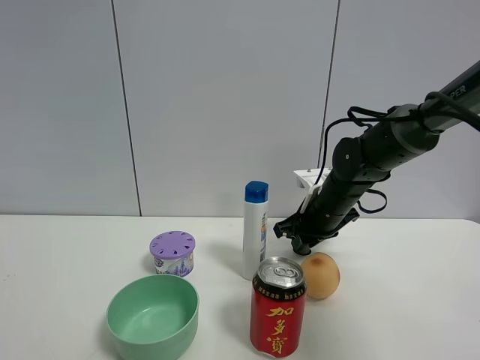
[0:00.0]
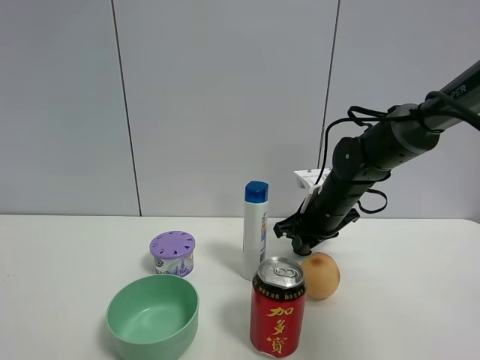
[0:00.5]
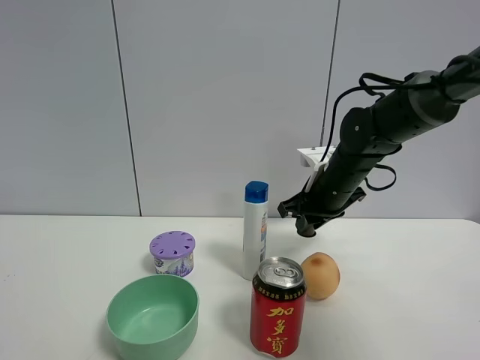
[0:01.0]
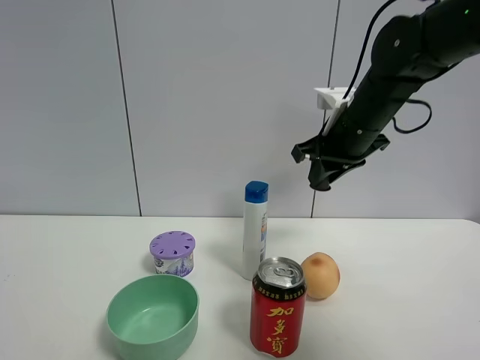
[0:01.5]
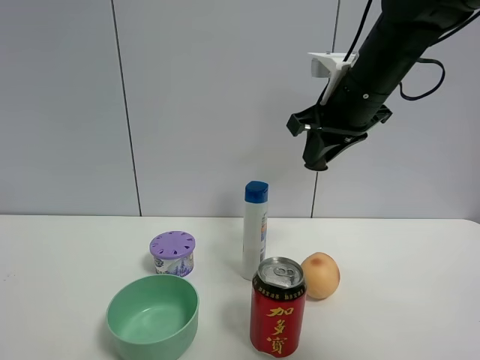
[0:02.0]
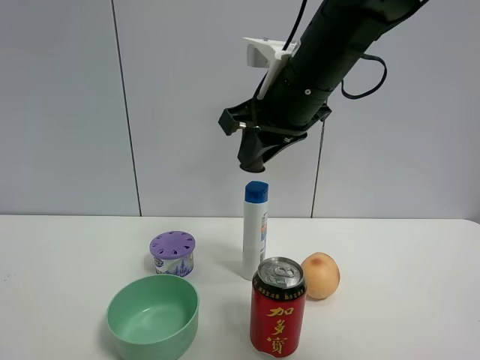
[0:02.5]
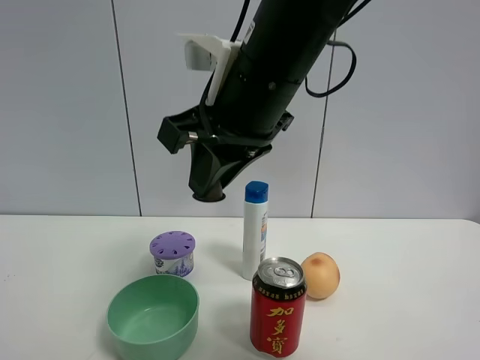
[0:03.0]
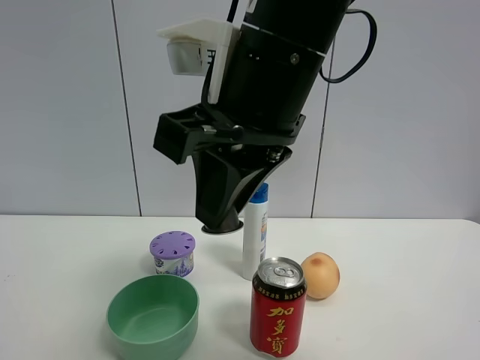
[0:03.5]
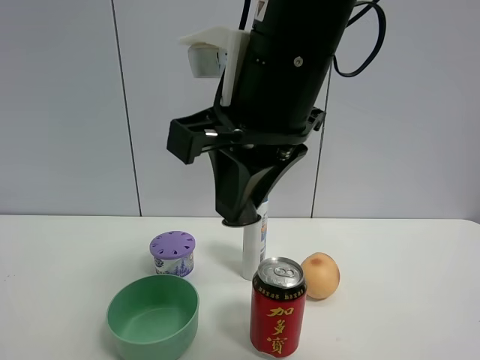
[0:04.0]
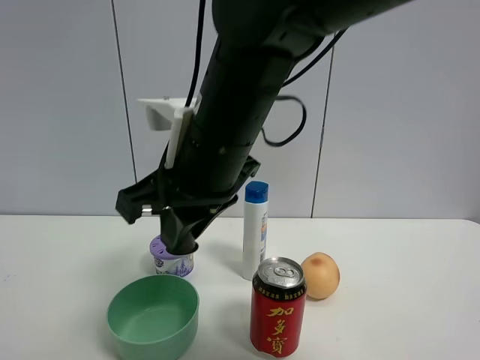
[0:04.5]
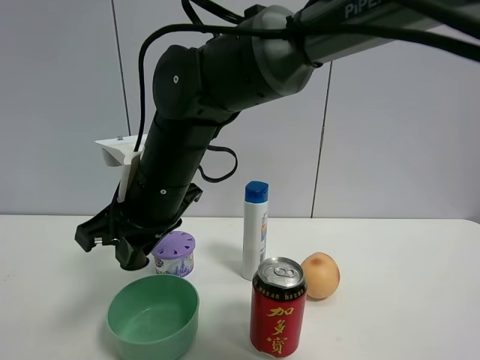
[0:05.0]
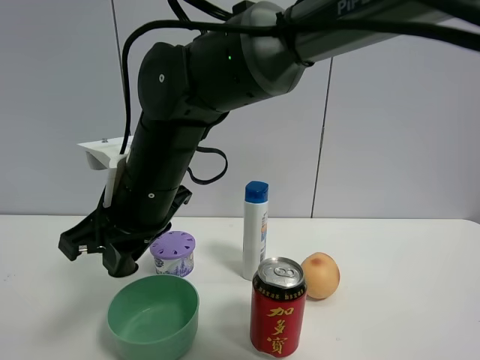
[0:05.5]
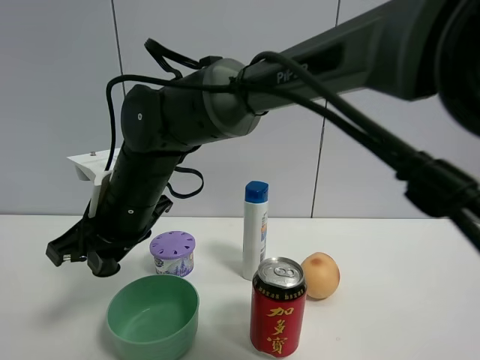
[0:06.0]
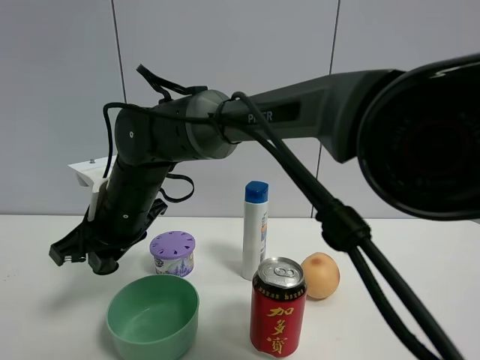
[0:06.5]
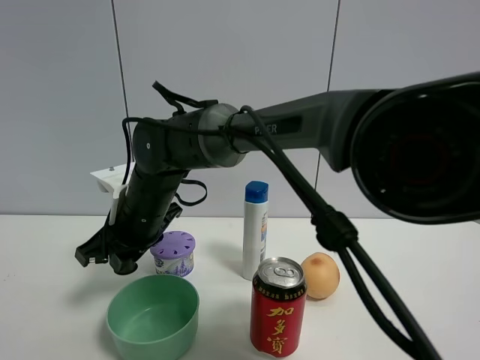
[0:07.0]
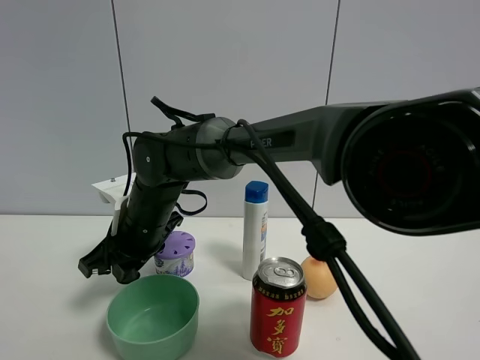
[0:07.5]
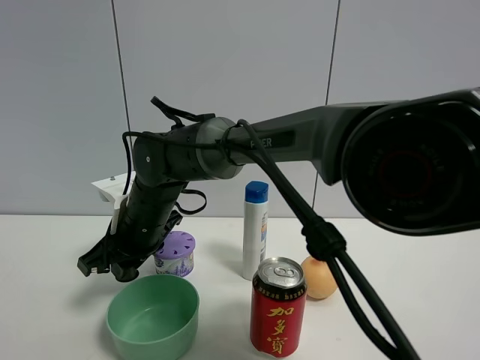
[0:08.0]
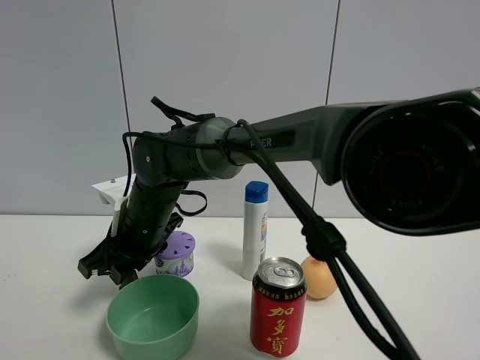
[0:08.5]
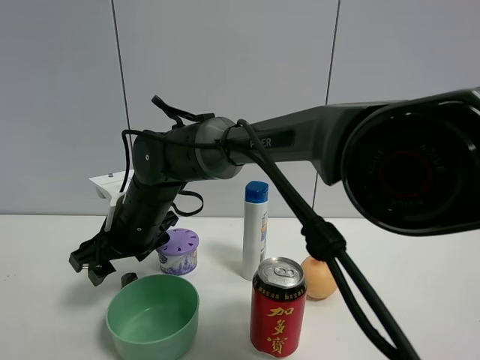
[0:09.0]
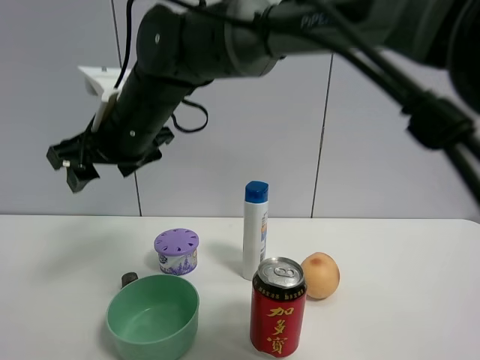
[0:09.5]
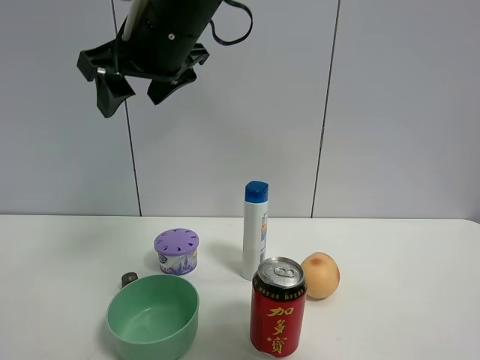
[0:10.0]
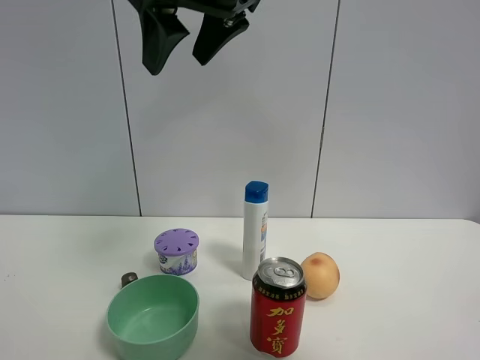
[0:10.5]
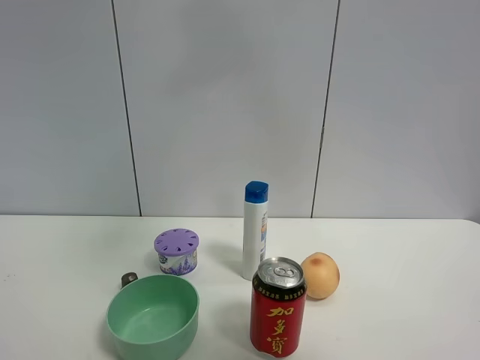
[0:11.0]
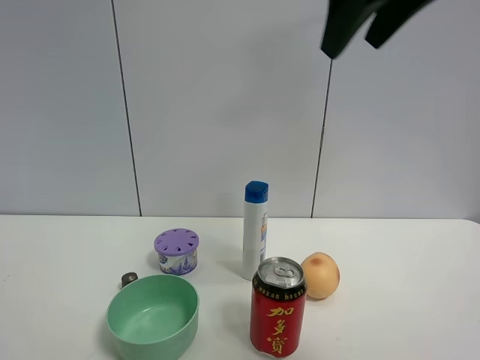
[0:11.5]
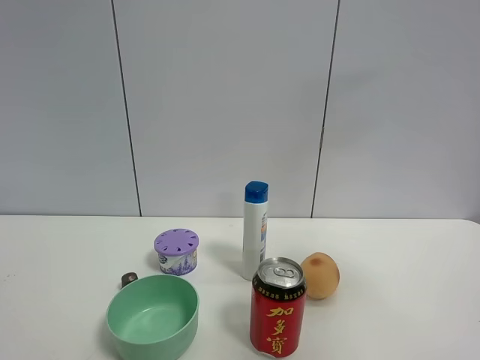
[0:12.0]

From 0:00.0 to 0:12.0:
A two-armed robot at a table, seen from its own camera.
Task of the whole recording: the gripper move the object.
Step, from 0:00.0 to 0:08.5: Place the coffee capsule on the table with the right gripper.
From 0:00.0 to 0:02.0: The right gripper is displaced upward by about 20 cm.
From 0:02.0 to 0:04.0: The right gripper goes about 20 cm backward and to the left.
From 0:04.0 to 0:06.0: The right gripper heads to the left, downward and forward, covering about 20 cm.
From 0:06.0 to 0:08.0: The right gripper changes place by roughly 5 cm.
From 0:08.0 to 0:10.0: The right gripper moves upward, roughly 20 cm, and opens.
From 0:10.0 to 0:12.0: The right gripper goes roughly 35 cm to the right and backward.

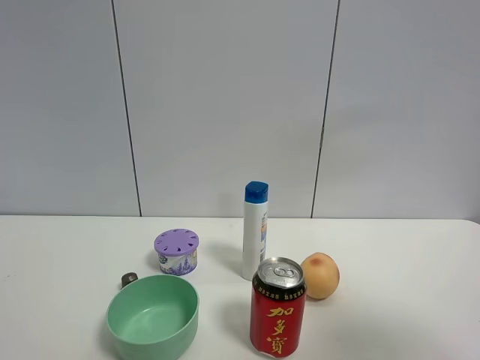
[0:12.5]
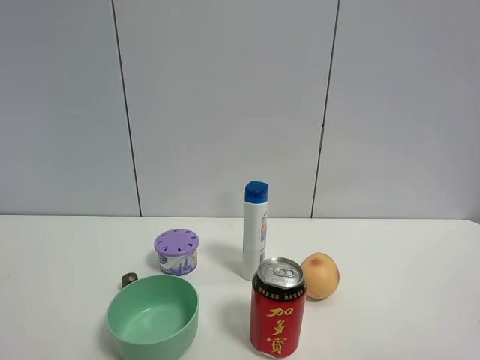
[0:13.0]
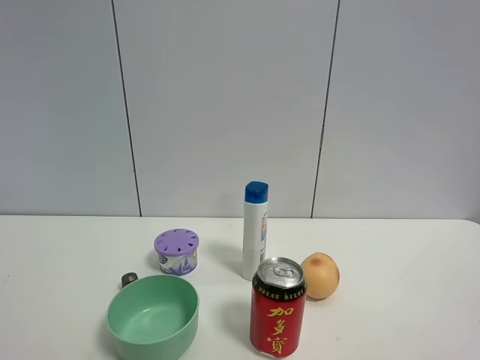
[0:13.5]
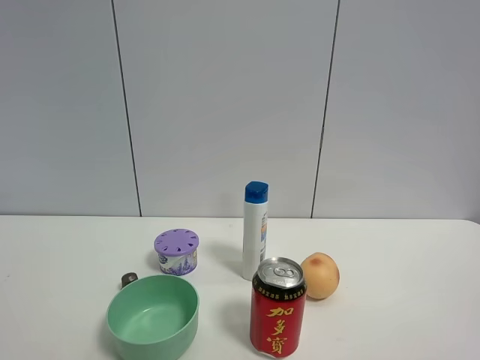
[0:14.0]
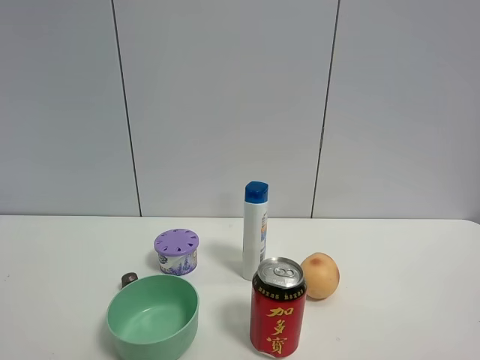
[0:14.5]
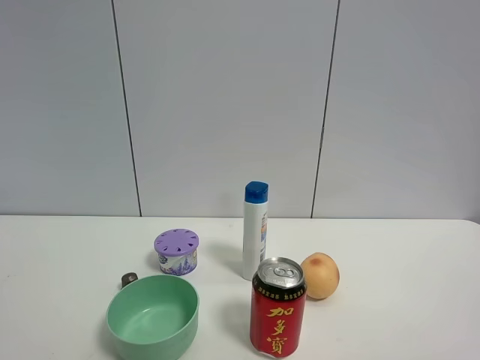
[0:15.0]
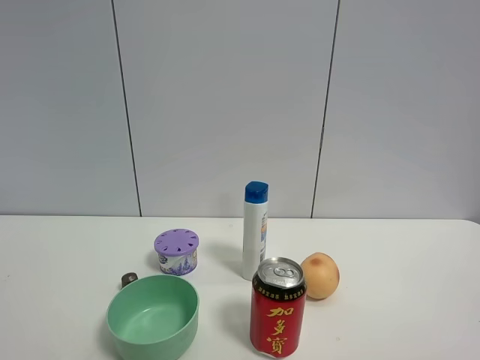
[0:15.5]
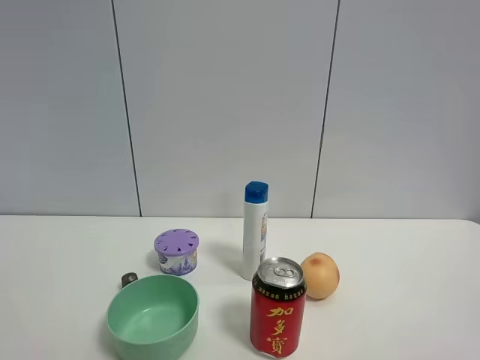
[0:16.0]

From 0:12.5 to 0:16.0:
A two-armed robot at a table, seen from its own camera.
Task of the whole recording: the gripper move the object.
From 0:12.5 to 0:14.5: The right gripper moves downward and backward, roughly 15 cm, and opens up.

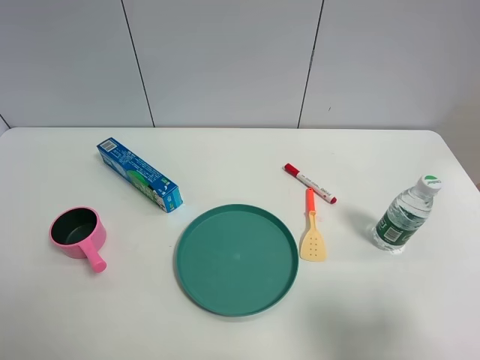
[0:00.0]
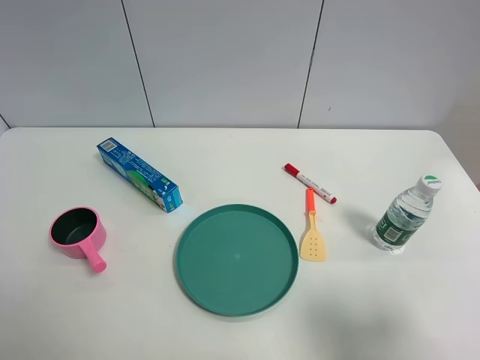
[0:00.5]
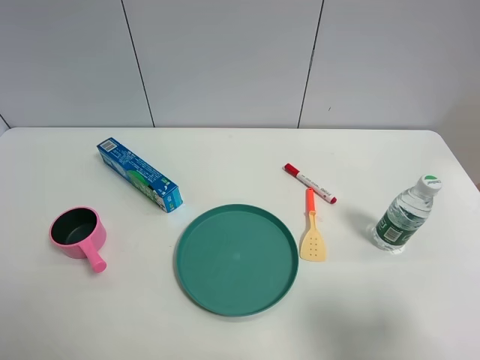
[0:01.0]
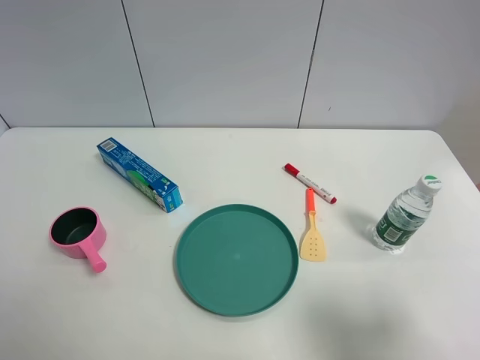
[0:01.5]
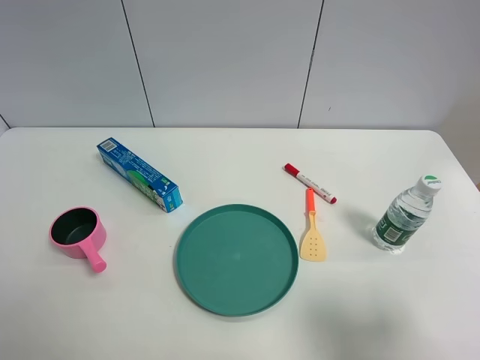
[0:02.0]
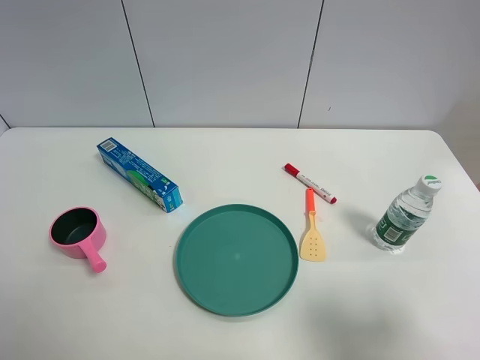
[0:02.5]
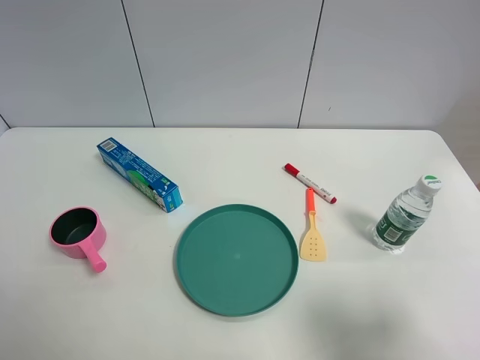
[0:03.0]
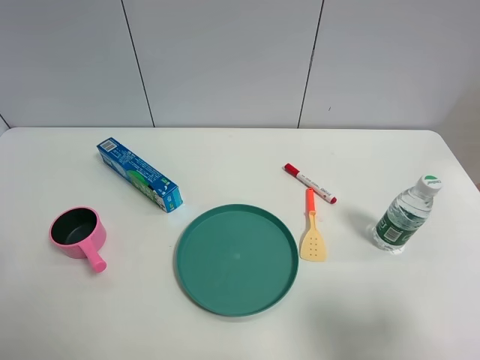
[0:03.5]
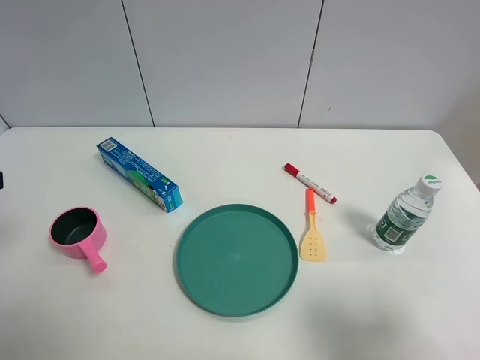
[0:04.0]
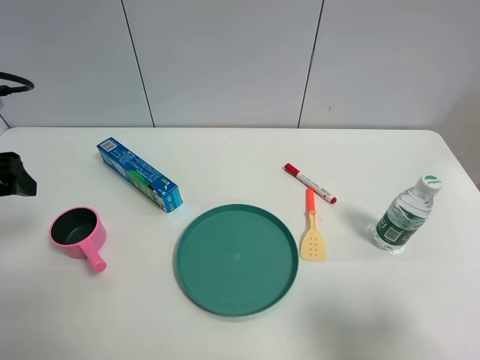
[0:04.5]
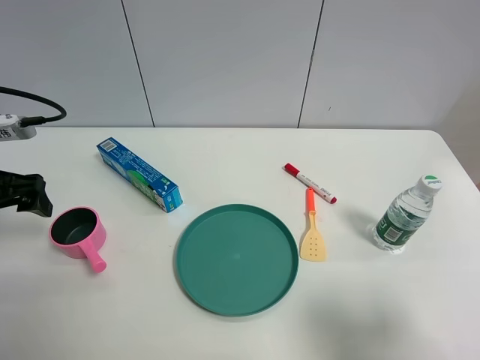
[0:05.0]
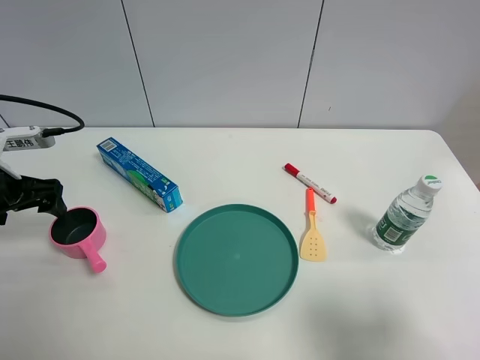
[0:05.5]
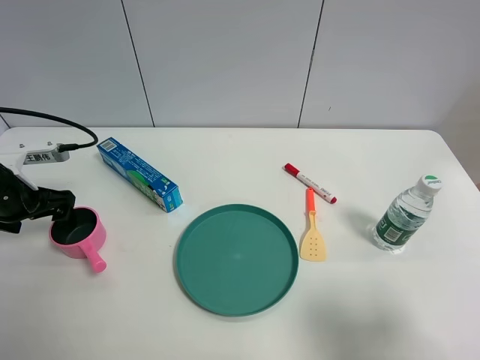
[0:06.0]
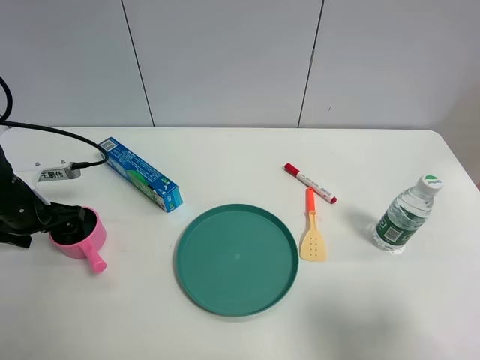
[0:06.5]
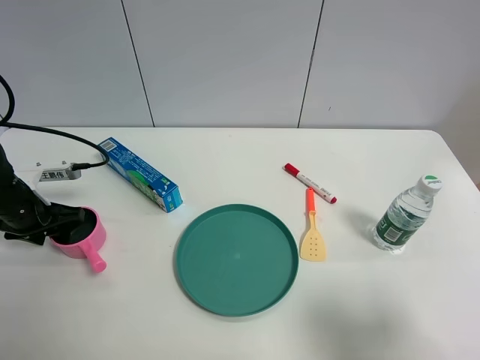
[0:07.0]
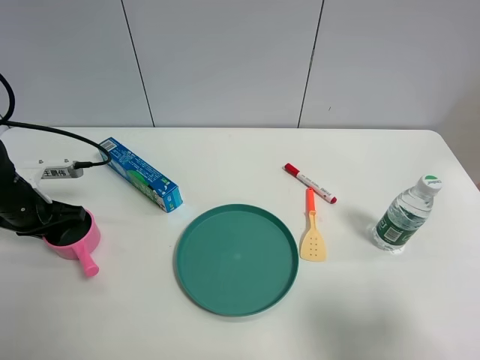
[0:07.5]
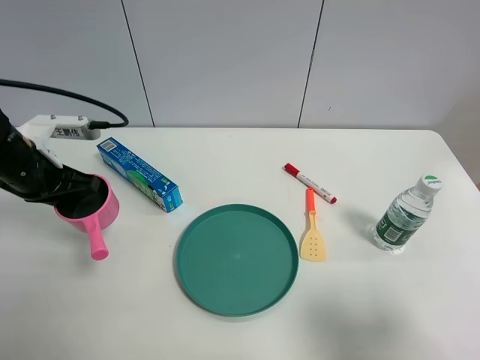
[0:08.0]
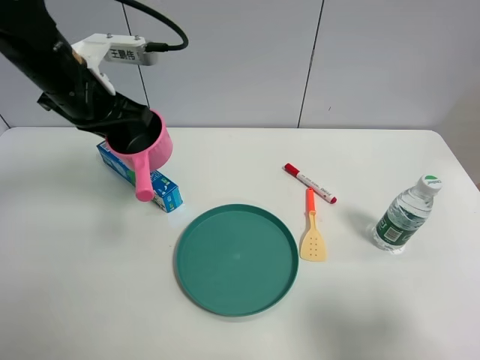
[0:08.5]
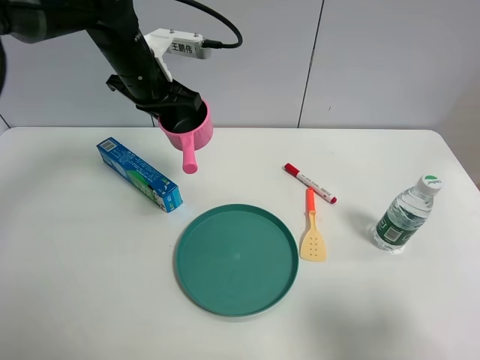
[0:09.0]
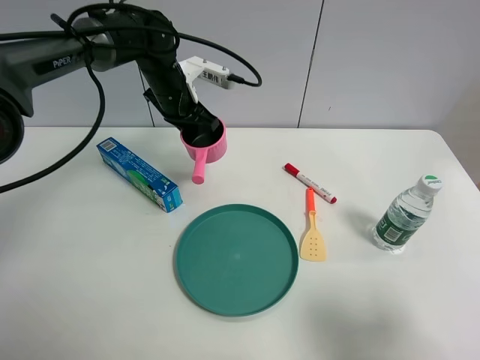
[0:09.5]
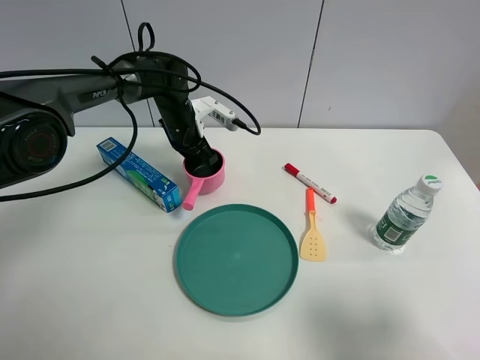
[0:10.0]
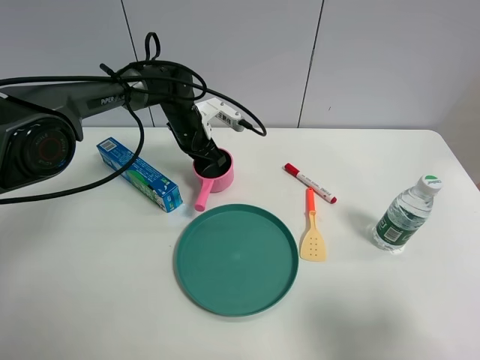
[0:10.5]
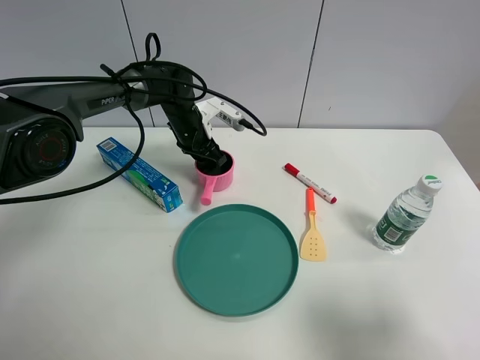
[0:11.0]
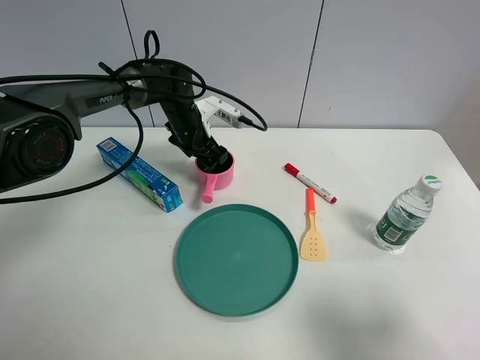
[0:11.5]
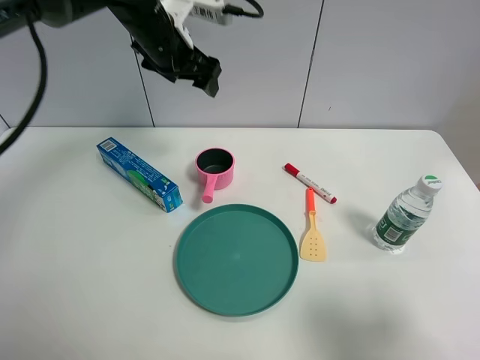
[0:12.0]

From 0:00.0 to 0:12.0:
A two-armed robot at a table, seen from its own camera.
Task of the whole recording: the gripper move the object.
Step, from 0:00.0 to 0:07.0: Grasp the pink pot with the left gripper.
Step, from 0:07.5 to 0:11.5: Place the pink pot on the table with the left gripper.
From 0:00.0 to 0:02.0: The two grippers keep their place.
From 0:04.0 to 0:06.0: The left gripper moves downward and forward, some 20 cm.
From 0:06.0 to 0:08.0: The left gripper heads to the right and upward, covering about 10 cm, and closes its fingers.
From 0:08.0 to 0:10.0: The left gripper travels forward, to the right and downward by about 25 cm.
From 0:10.0 to 0:12.0: The left gripper travels upward by roughly 20 cm, and opens.
